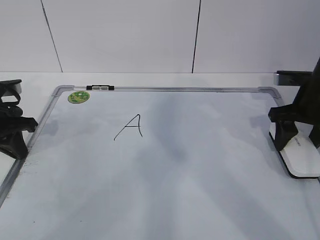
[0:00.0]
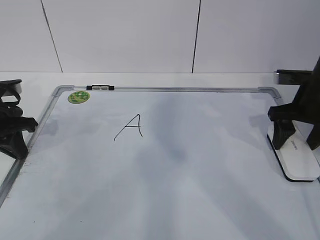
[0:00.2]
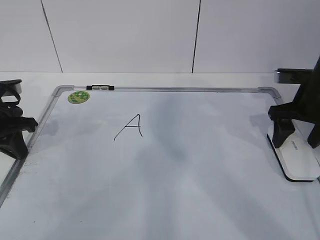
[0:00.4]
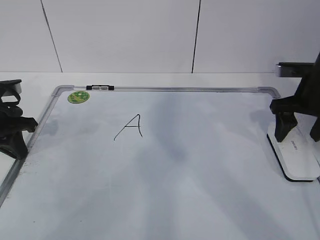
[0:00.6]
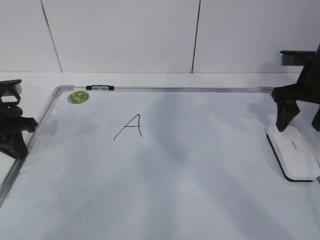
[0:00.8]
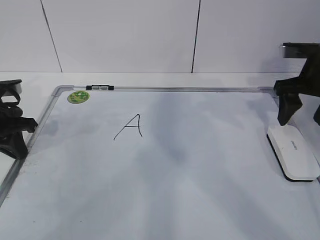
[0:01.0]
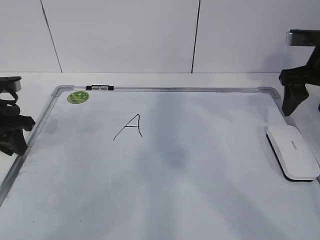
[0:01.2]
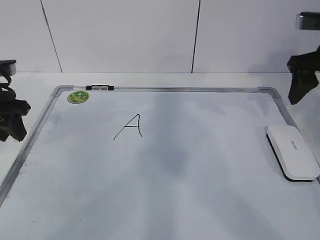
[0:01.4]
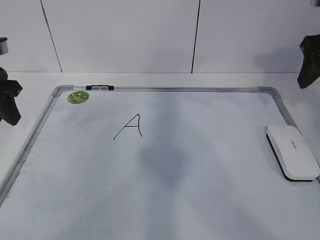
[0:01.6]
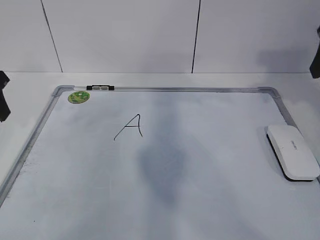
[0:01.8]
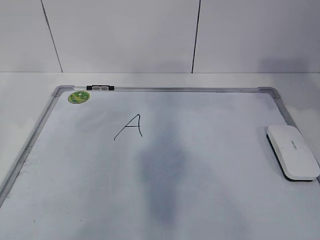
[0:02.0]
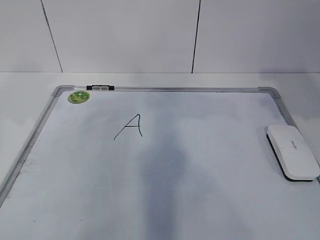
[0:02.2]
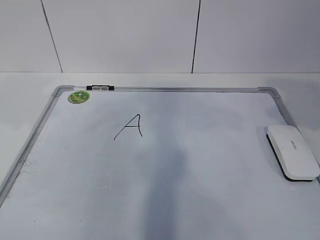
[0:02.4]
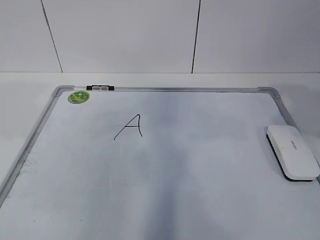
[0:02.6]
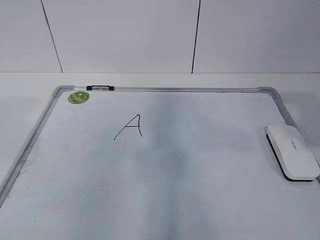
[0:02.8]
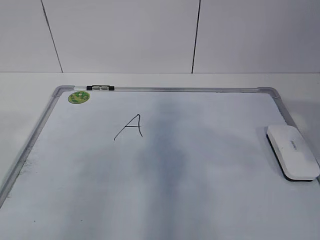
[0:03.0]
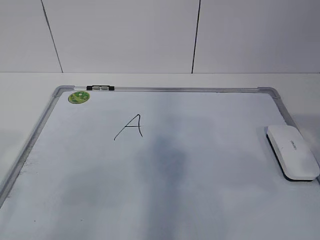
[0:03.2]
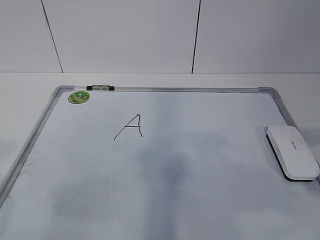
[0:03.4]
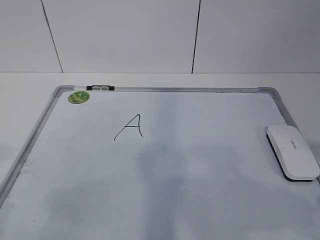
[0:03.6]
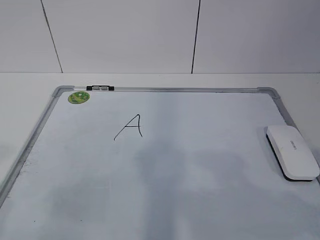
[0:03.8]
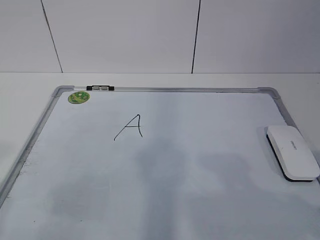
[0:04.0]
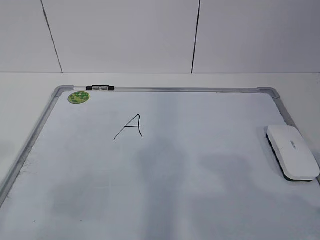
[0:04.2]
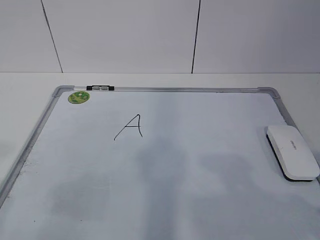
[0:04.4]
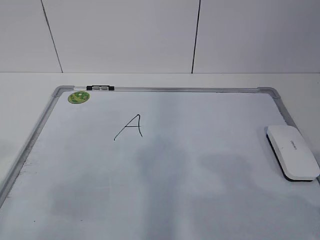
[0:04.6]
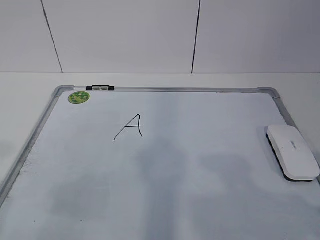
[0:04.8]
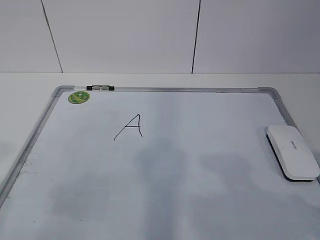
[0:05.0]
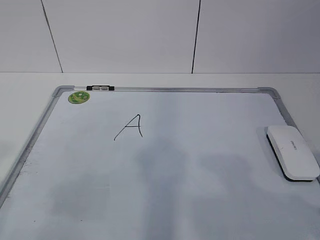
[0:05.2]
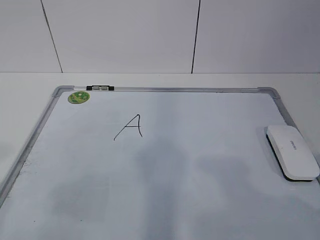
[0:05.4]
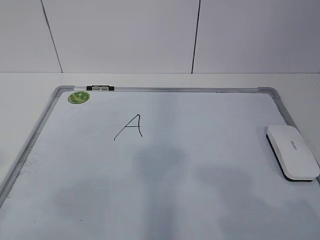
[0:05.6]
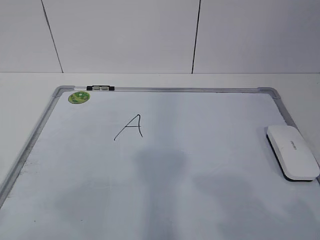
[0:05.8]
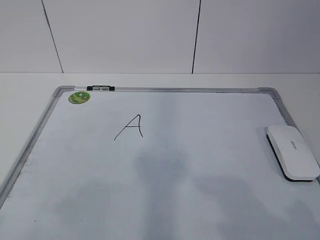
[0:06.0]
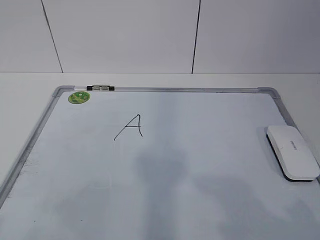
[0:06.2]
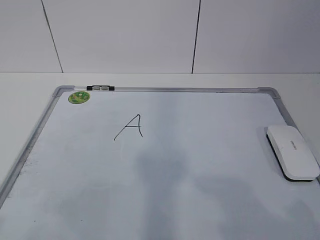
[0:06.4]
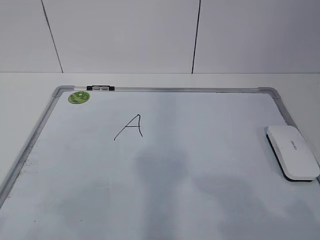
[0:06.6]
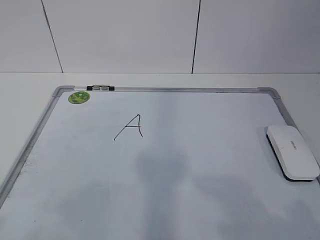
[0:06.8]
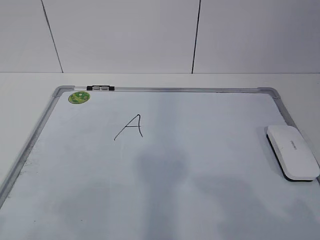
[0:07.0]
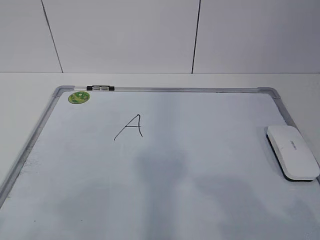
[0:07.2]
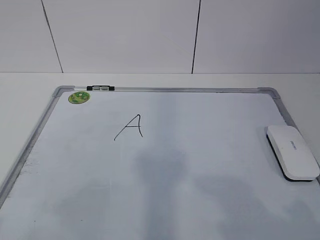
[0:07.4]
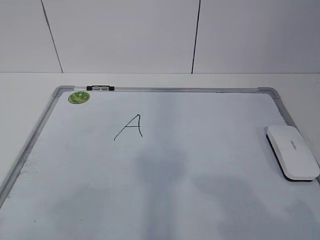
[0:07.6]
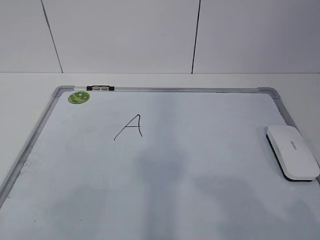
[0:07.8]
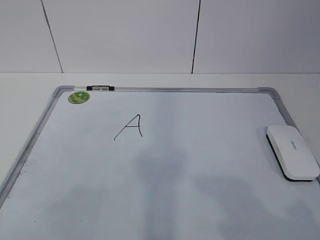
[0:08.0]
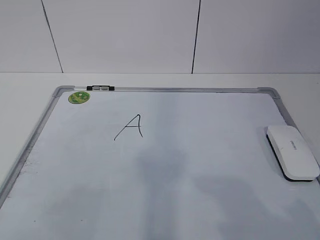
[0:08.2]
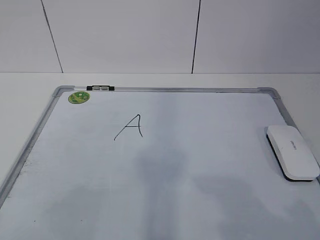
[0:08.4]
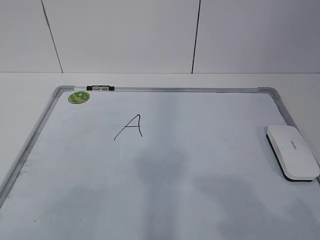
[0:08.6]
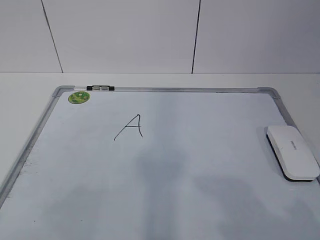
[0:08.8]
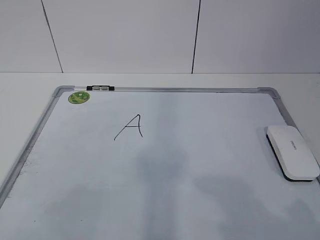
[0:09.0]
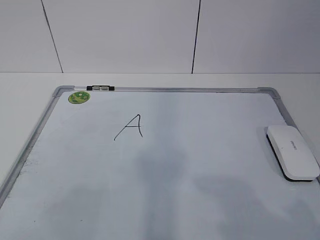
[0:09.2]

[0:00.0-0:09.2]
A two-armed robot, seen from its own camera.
Task of the whole recording: pick up the eraser on the blackboard and erase the letter "a".
0:00.0 to 0:01.6: The right gripper moves upward, about 15 cm, and opens. The left gripper goes approximately 10 cm upward, and opens.
0:01.6 to 0:03.0: The grippers both shift backward by some 20 cm.
0:03.0 to 0:04.6: The right gripper shifts roughly 10 cm downward and backward; the left gripper moves backward, approximately 5 cm.
0:06.2 to 0:09.2: Both grippers stay about where they are.
